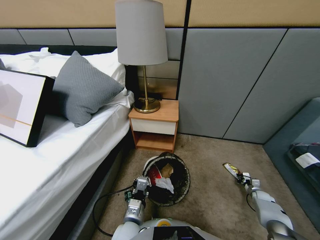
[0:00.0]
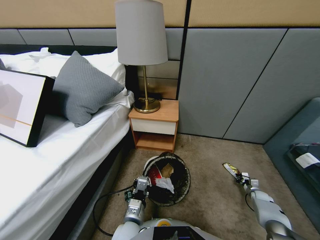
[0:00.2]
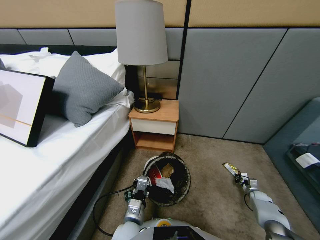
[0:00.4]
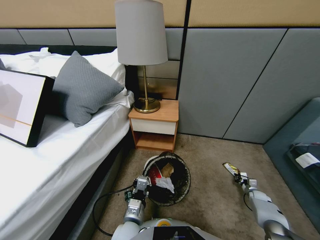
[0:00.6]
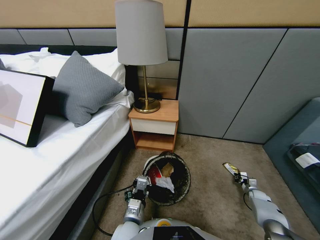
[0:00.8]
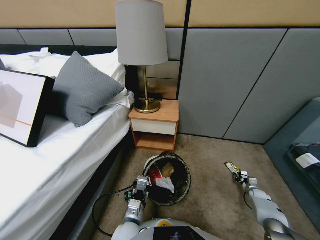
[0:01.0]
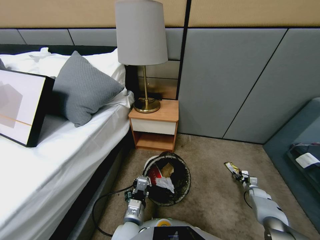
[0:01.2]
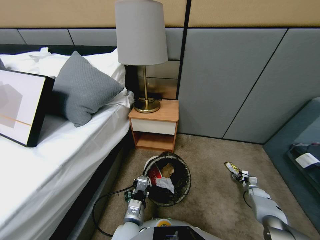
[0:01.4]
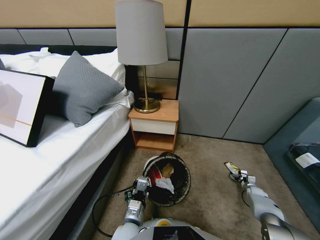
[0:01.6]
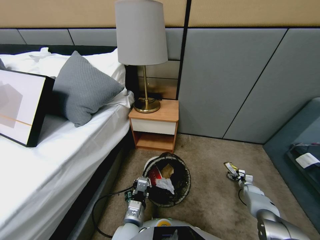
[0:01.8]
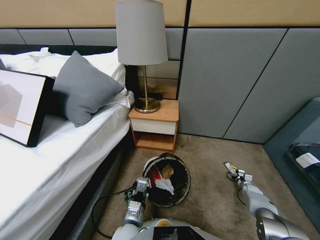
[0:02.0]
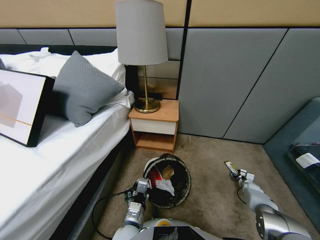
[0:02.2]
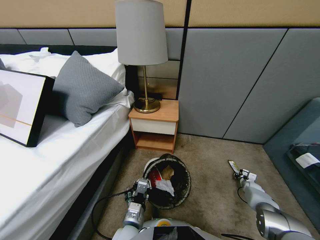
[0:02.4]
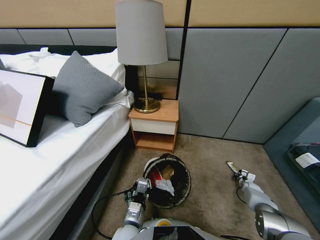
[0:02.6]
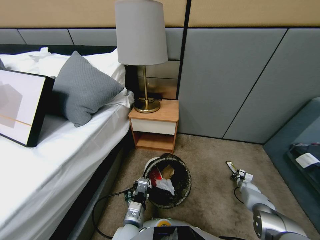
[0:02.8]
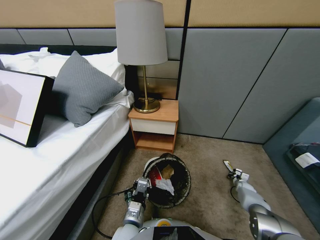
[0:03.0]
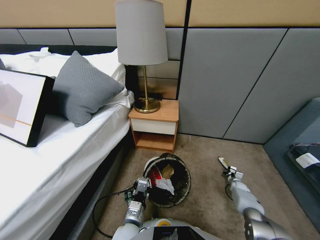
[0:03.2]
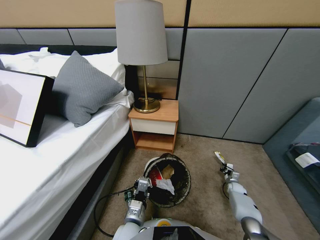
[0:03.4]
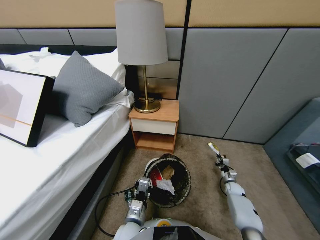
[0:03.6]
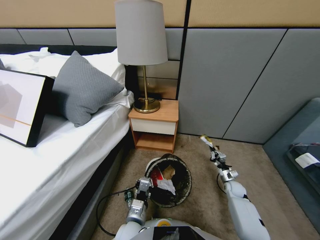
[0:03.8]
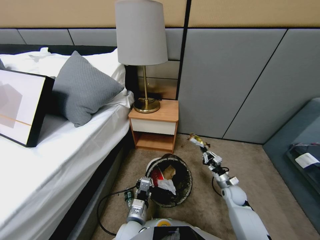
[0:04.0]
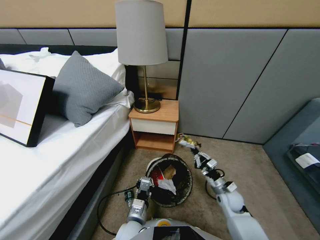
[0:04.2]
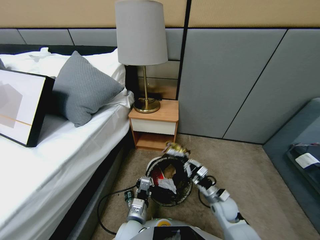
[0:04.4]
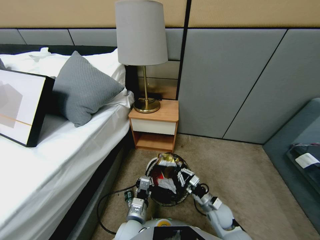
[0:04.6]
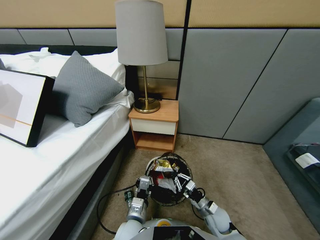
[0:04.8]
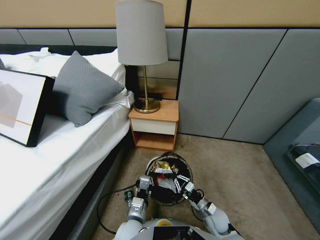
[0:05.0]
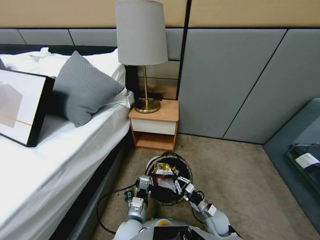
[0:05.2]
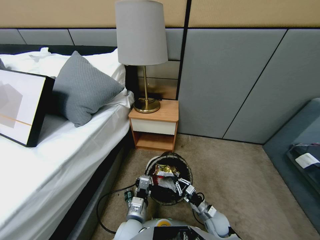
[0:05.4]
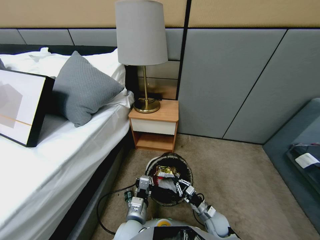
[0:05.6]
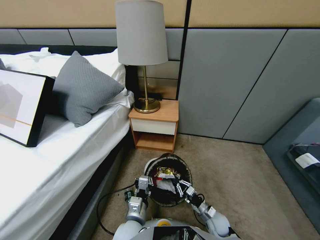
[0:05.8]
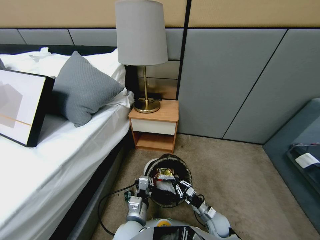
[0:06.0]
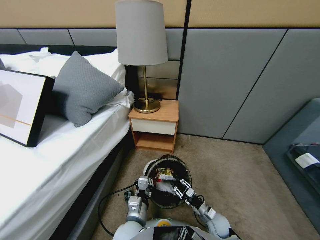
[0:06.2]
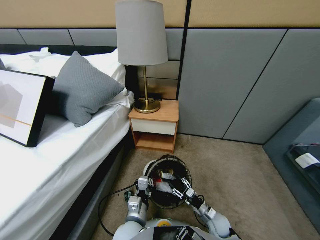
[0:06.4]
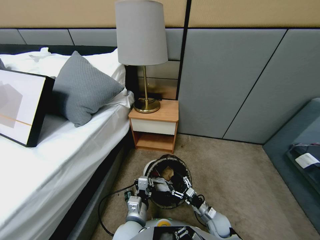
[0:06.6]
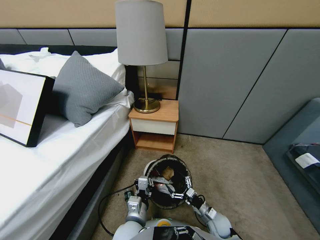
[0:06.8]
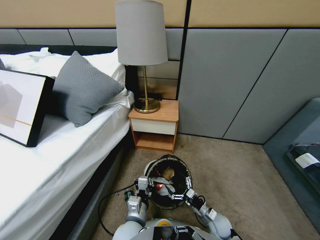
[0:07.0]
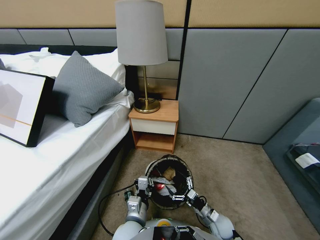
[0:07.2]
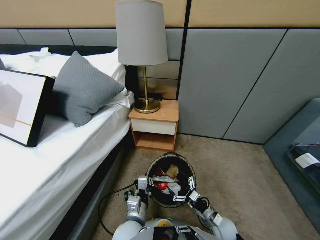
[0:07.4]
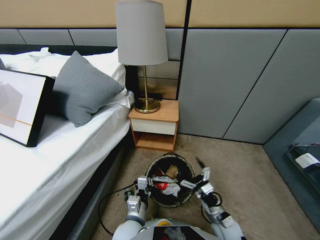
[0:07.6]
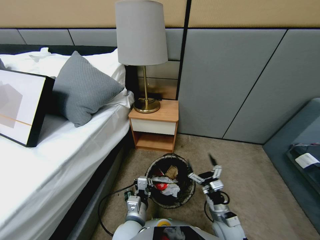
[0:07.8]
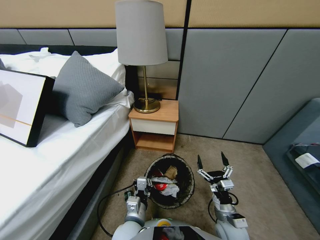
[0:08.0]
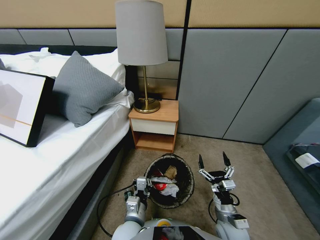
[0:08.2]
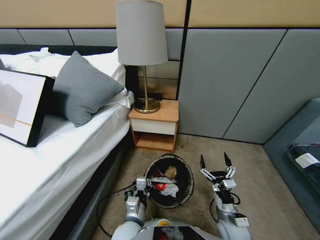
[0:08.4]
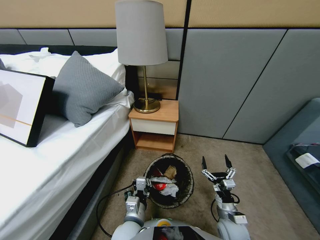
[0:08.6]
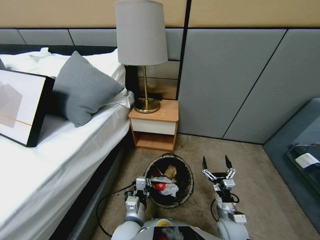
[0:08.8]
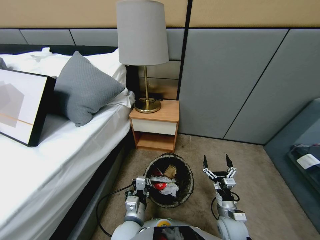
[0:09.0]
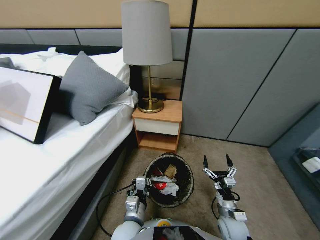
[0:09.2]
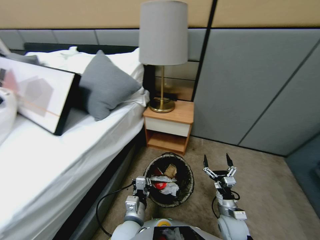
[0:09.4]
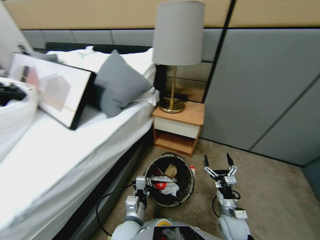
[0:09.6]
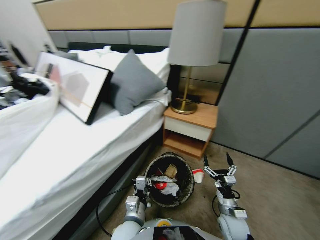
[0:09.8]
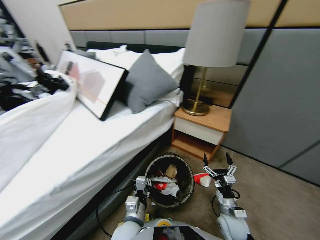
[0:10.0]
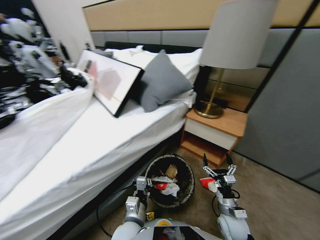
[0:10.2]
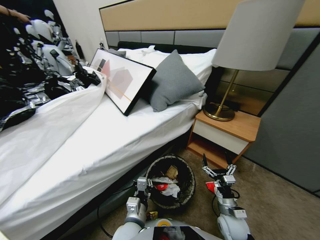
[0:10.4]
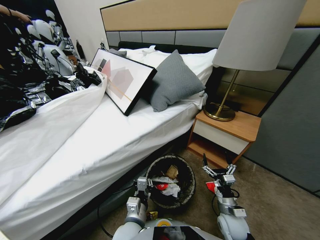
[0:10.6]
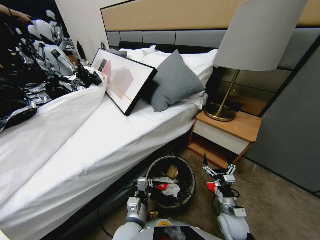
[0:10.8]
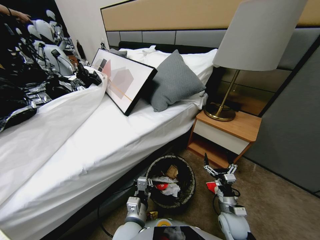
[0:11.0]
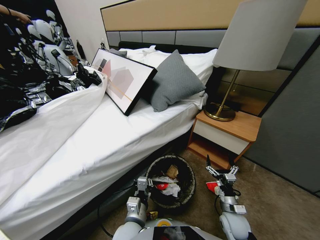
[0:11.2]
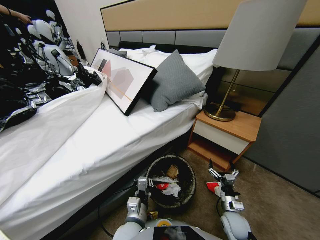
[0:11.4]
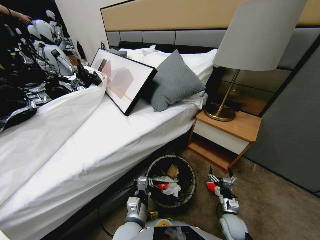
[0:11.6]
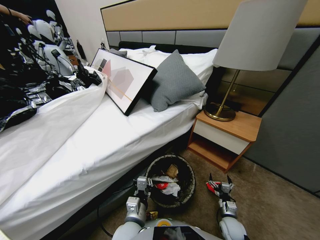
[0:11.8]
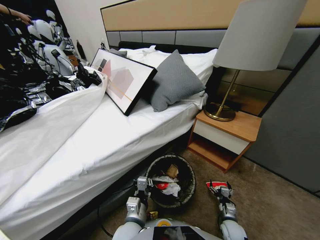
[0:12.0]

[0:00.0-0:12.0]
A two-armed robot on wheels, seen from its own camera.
Task of the whole recording: Pick up the trash bin, then pick up the garbage from the floor and place it into the trash bin.
0:00.0 to 0:01.6: The right gripper opens.
0:01.6 to 0:03.0: The right gripper heads to the left, covering some 5 cm, and closes up.
0:03.0 to 0:04.4: The right gripper heads to the left, upward and backward, covering roughly 35 cm.
0:04.4 to 0:06.0: The right gripper shifts some 10 cm downward.
0:06.0 to 0:07.6: The right gripper travels upward by approximately 10 cm, and opens its fingers.
0:07.6 to 0:09.0: The grippers make only small movements.
0:10.4 to 0:12.0: The right gripper travels downward and to the right by about 15 cm.

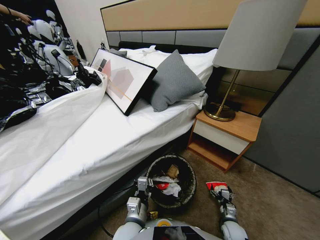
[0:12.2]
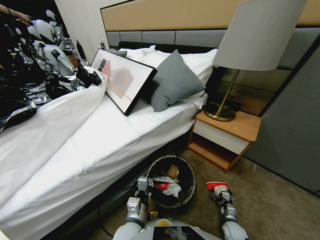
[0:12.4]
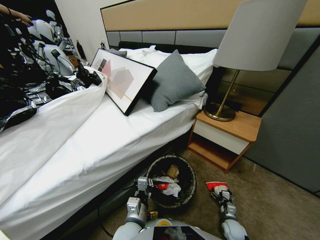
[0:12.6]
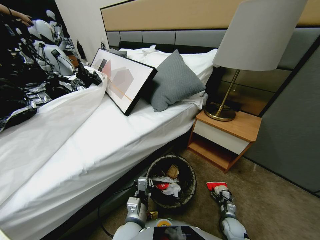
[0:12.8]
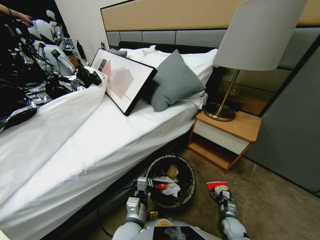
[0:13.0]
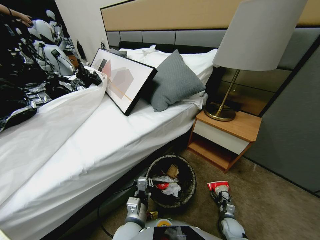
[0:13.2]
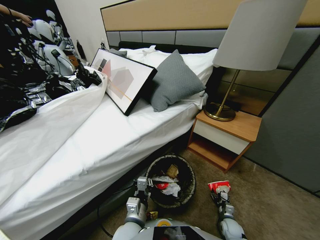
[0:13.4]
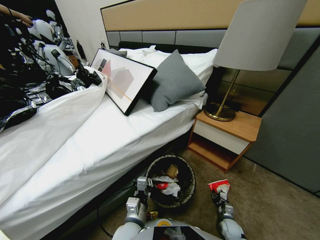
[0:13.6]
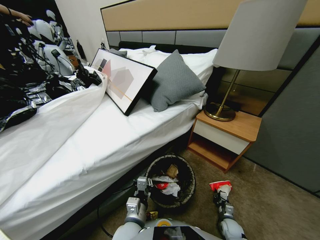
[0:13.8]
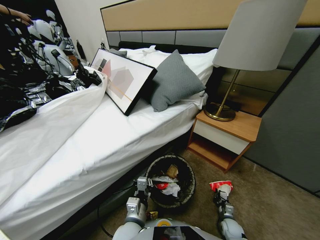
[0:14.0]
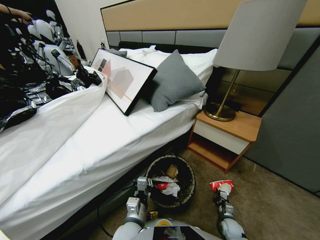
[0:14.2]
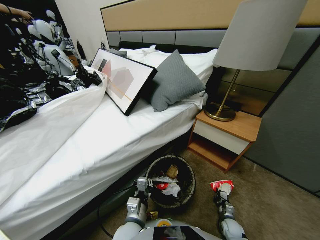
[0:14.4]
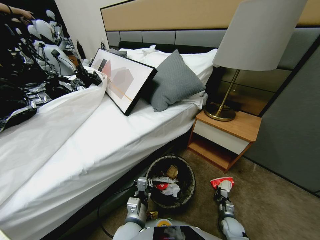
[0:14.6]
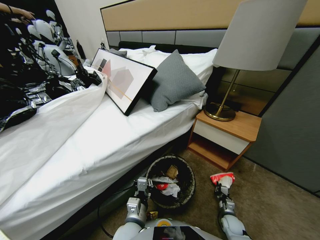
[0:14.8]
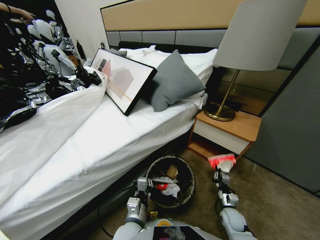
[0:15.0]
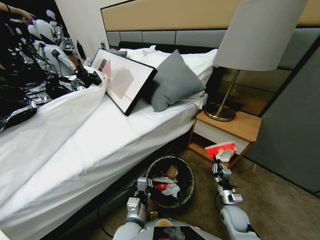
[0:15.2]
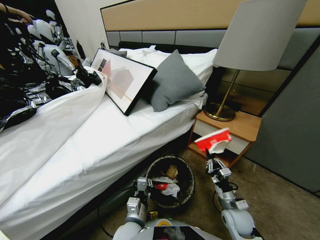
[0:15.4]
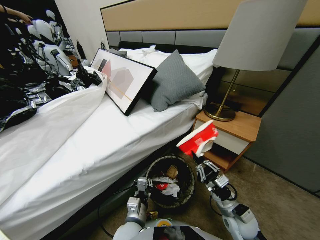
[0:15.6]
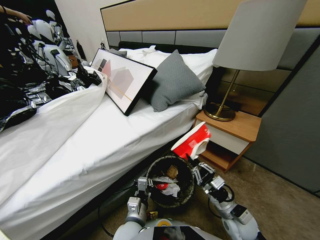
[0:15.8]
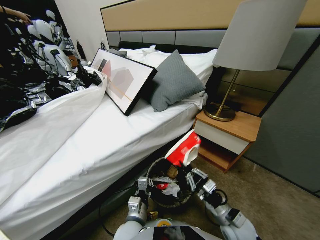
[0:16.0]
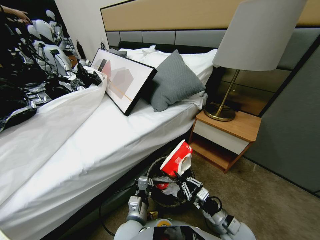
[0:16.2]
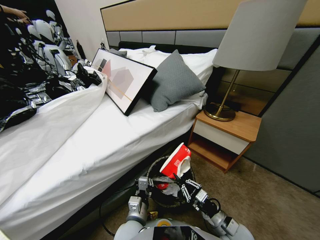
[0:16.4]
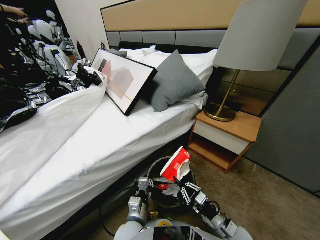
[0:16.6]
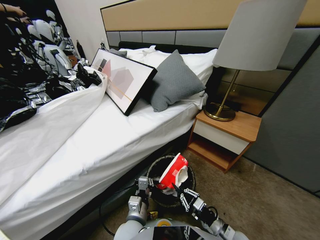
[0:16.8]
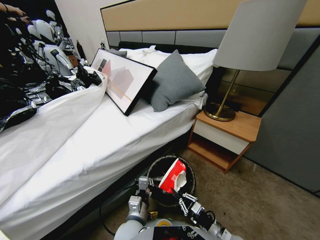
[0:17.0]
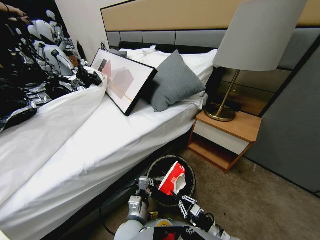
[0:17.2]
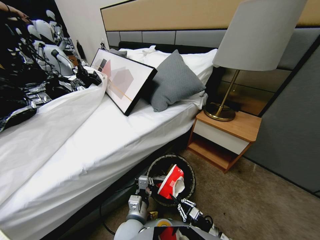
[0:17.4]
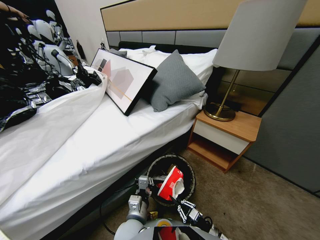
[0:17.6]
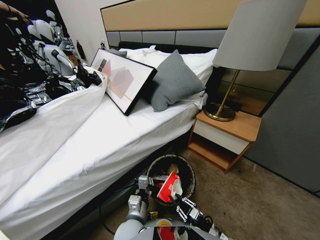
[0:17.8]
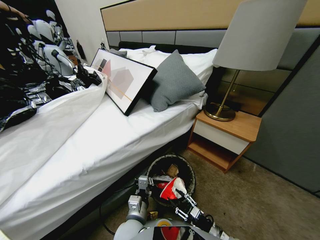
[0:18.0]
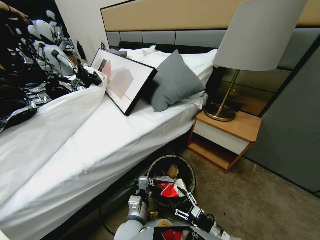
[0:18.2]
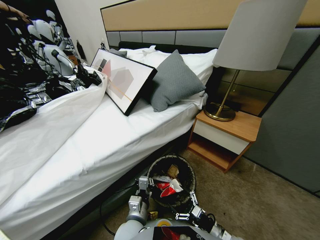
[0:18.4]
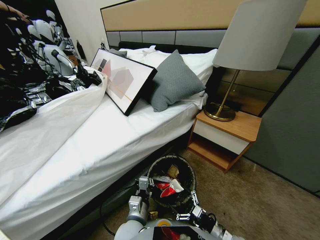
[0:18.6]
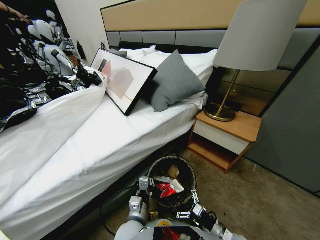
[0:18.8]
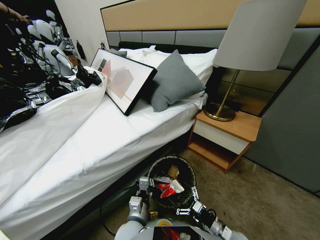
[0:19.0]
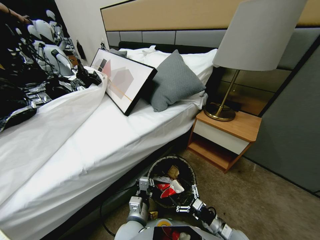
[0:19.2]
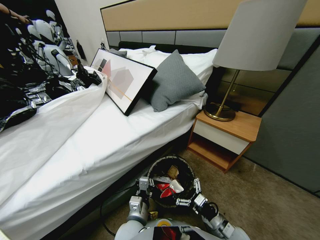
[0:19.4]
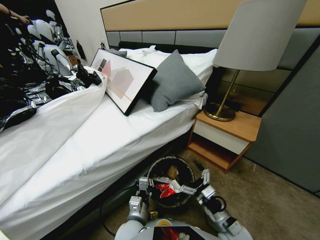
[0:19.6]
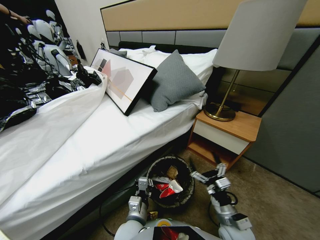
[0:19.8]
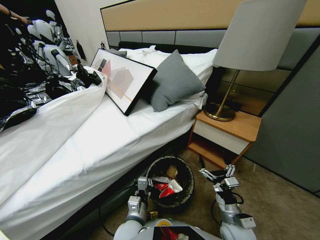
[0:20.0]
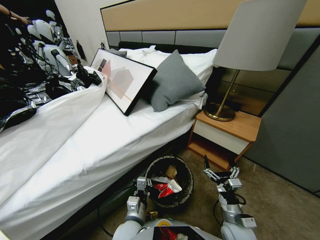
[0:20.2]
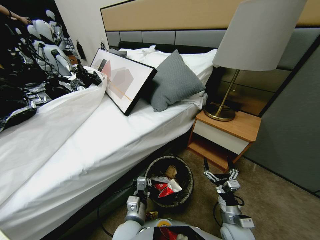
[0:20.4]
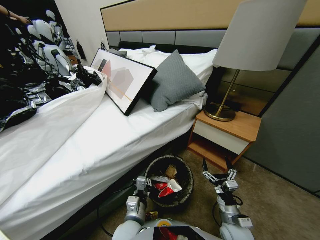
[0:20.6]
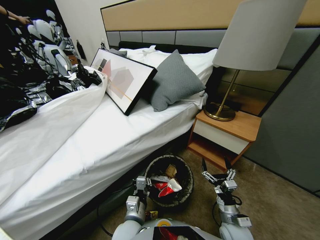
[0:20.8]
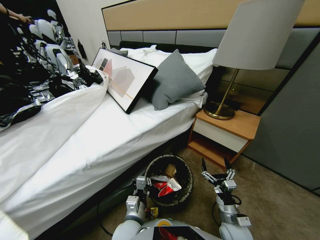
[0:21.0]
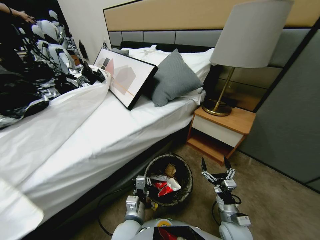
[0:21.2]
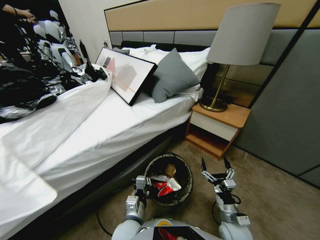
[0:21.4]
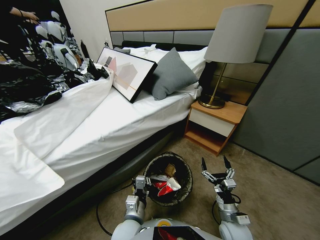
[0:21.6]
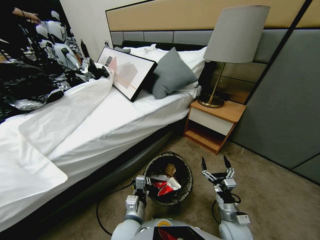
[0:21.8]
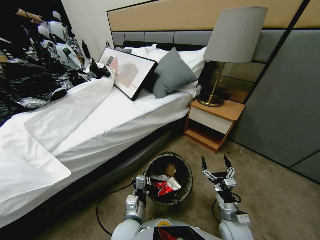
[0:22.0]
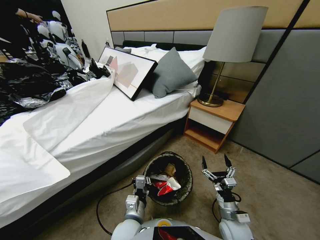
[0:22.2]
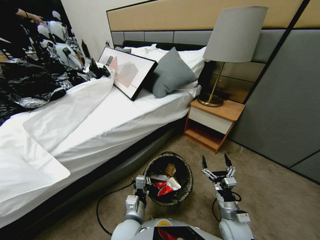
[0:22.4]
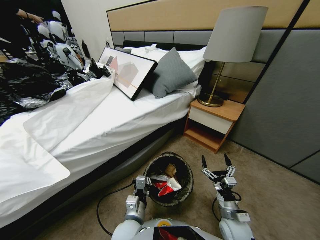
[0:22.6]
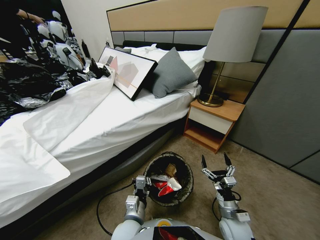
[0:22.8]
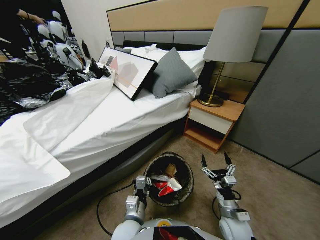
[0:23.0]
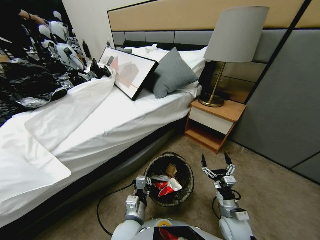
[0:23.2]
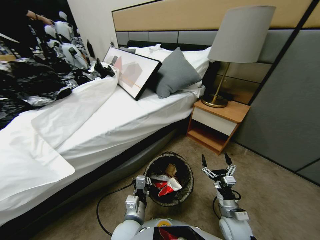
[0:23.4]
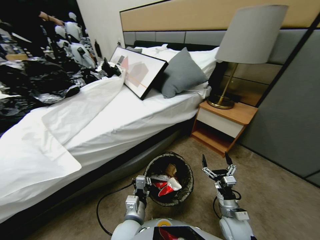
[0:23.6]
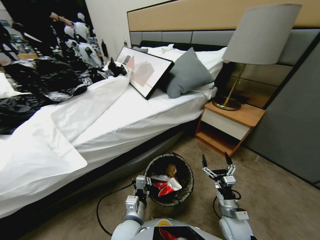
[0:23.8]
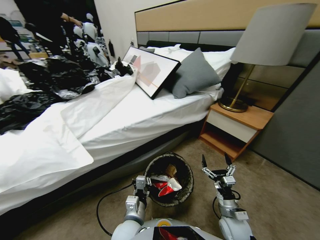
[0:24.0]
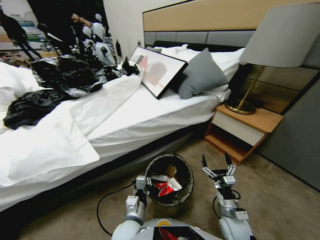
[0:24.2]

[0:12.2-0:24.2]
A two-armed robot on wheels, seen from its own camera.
Task of the whole recording: Pick up the trash bin, then pick up the garbage from the floor and place it into the trash bin.
0:12.2 to 0:13.8: The right gripper changes place by about 5 cm, and closes.
0:13.8 to 0:15.2: The right gripper shifts roughly 20 cm upward.
0:15.2 to 0:16.6: The right gripper shifts about 5 cm backward.
0:16.6 to 0:18.2: The right gripper shifts by some 5 cm, and opens its fingers.
0:18.2 to 0:19.8: The right gripper goes about 10 cm upward.
0:19.8 to 0:21.2: The right gripper shifts by roughly 5 cm.
